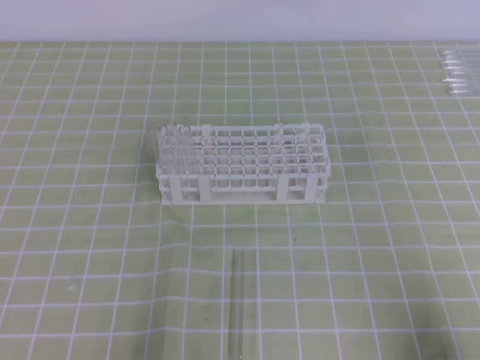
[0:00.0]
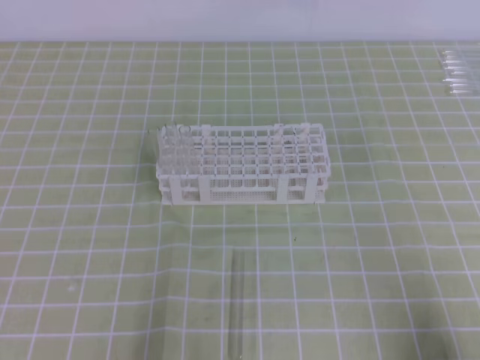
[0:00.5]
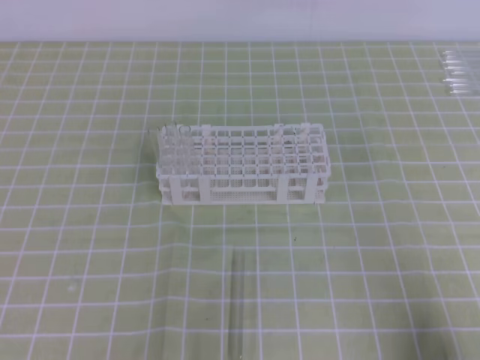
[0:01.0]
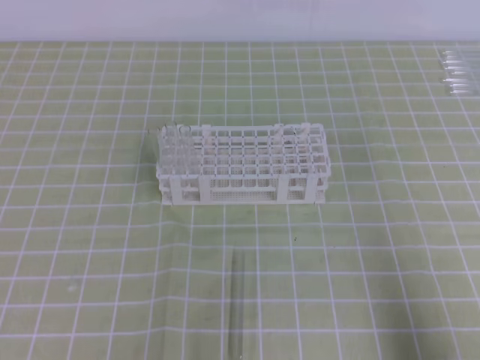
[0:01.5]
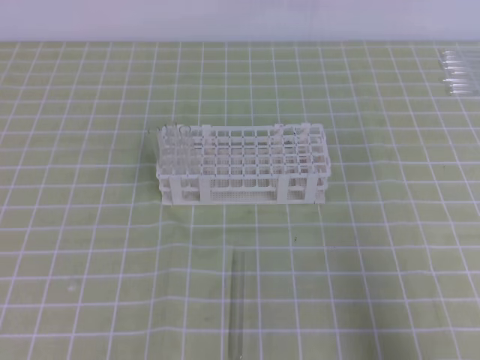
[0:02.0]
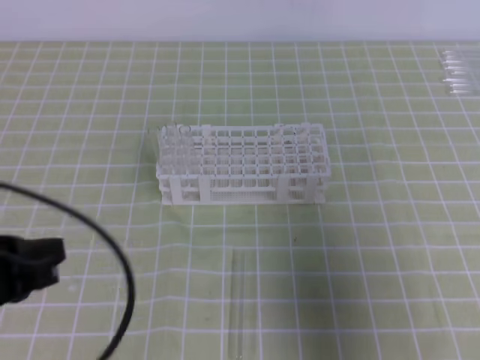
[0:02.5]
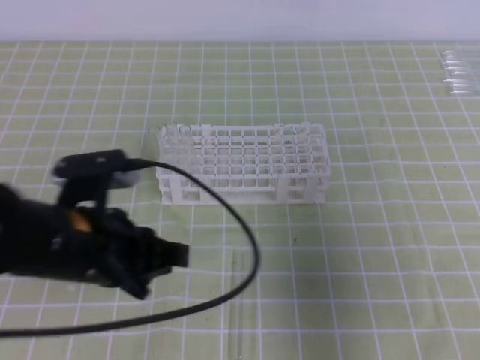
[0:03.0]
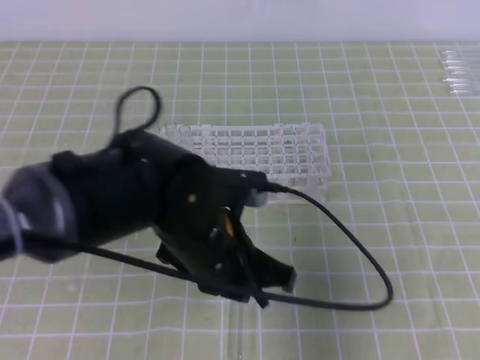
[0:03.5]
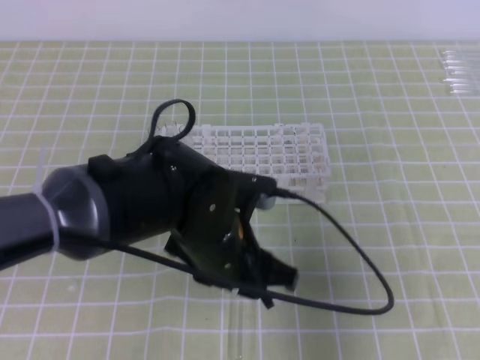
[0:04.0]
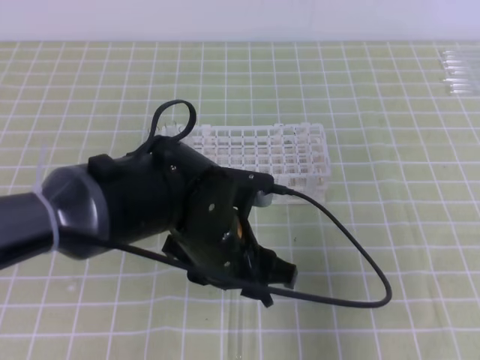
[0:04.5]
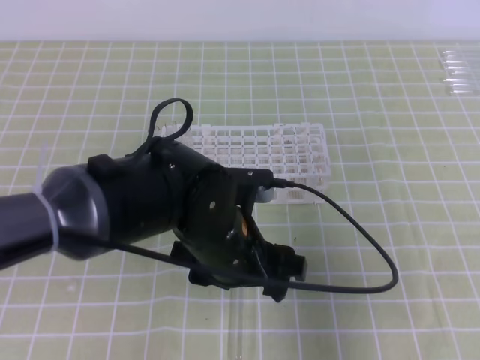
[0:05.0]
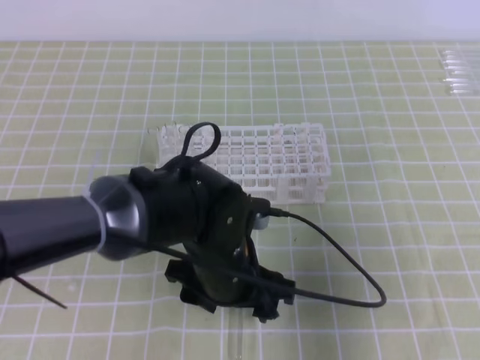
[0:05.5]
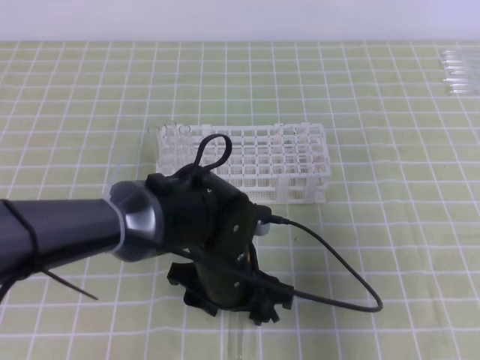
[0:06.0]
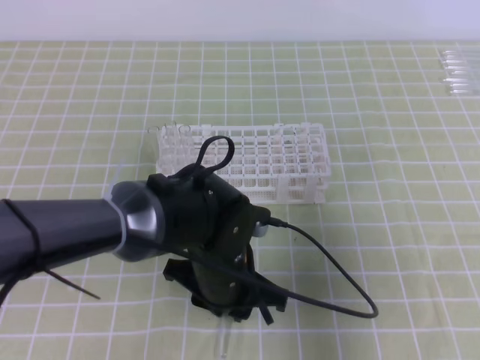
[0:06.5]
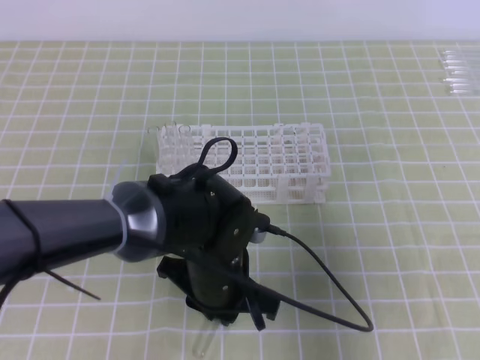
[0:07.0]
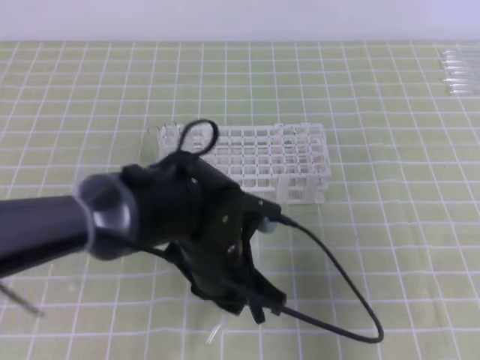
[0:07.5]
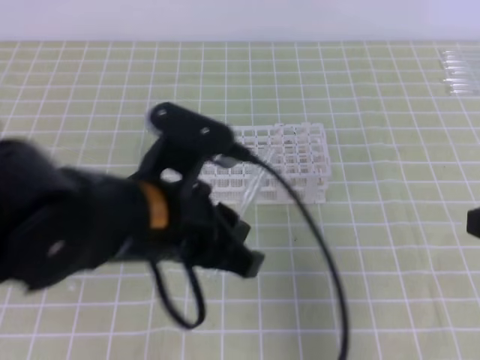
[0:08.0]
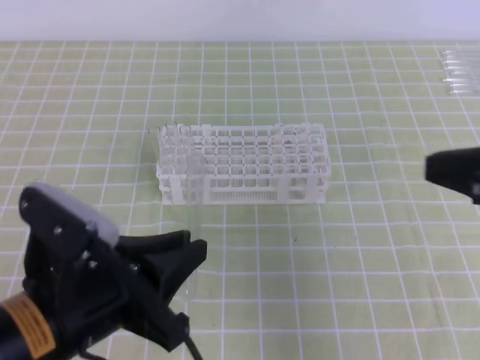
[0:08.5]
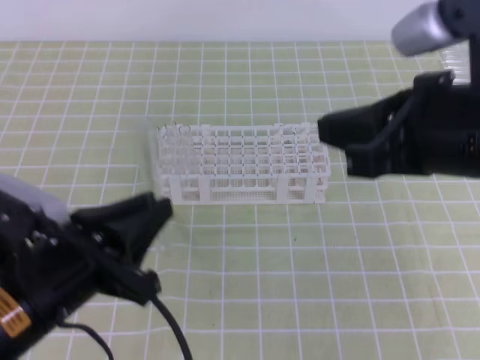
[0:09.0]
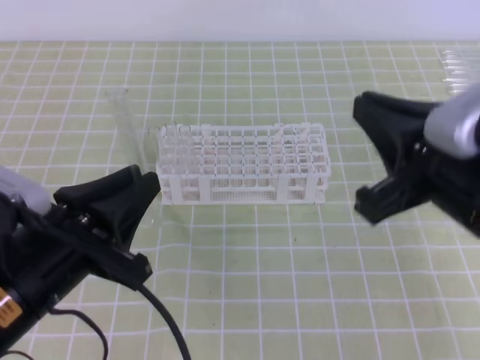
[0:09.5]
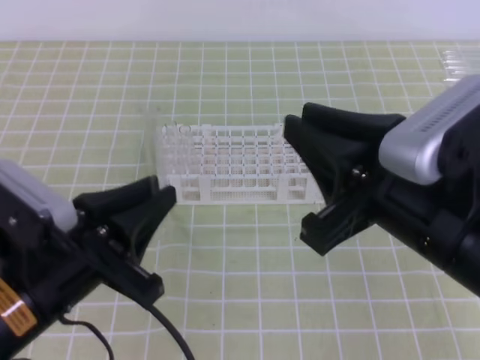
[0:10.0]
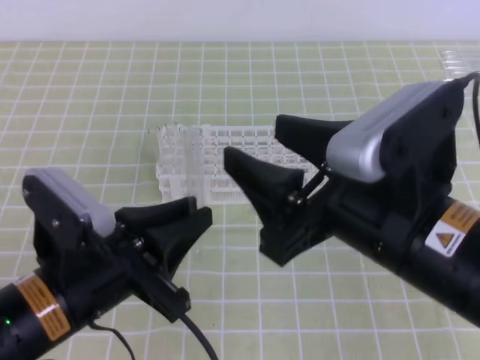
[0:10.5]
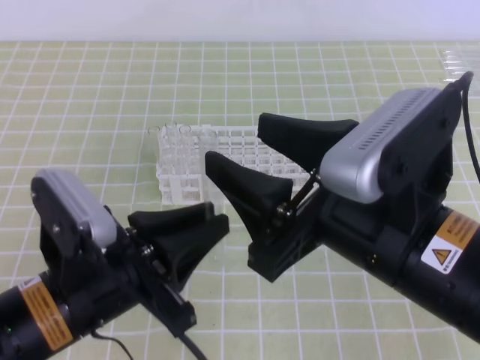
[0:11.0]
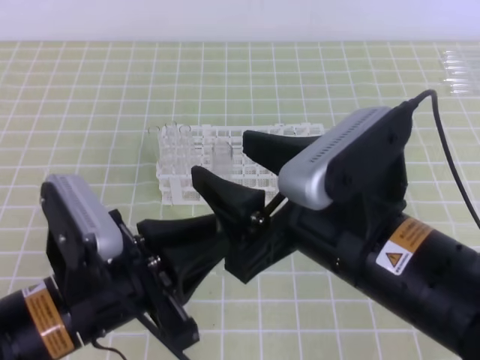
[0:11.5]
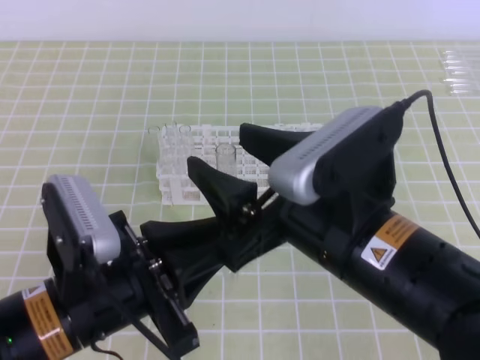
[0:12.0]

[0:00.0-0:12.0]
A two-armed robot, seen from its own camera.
0:00.0 to 0:02.0: The right gripper heads upward, covering roughly 5 cm.
0:02.0 to 0:04.0: The right gripper moves forward, approximately 10 cm. The left gripper travels to the right and forward by approximately 30 cm, and opens its fingers.
0:04.0 to 0:06.0: The left gripper shifts approximately 5 cm downward, and opens its fingers.
0:06.0 to 0:08.0: The left gripper goes approximately 15 cm upward and to the left, and closes up.
0:08.0 to 0:10.0: The left gripper travels to the left by roughly 10 cm. The right gripper heads to the left, covering approximately 15 cm.
0:10.0 to 0:12.0: The right gripper heads to the left, covering some 5 cm, and opens.

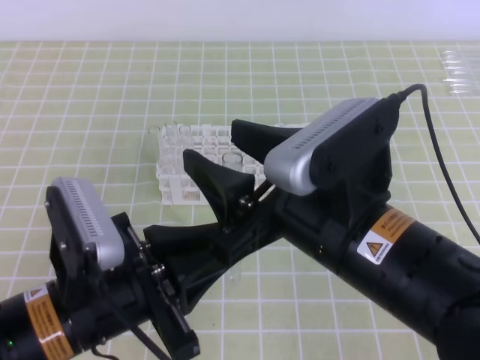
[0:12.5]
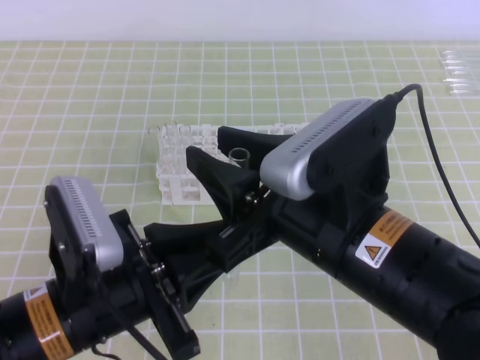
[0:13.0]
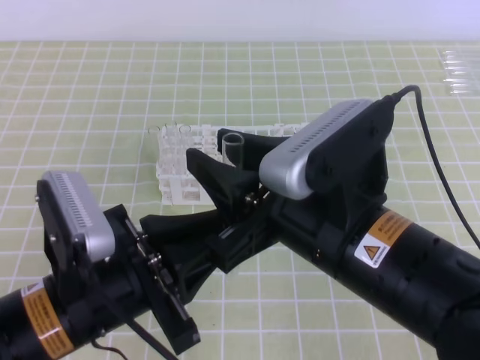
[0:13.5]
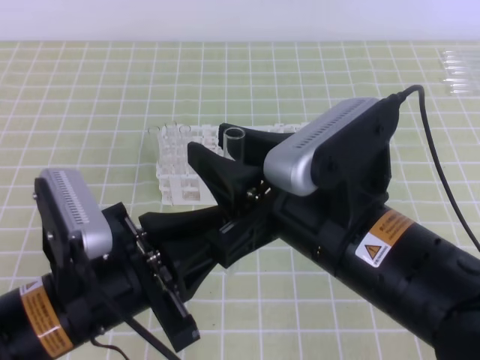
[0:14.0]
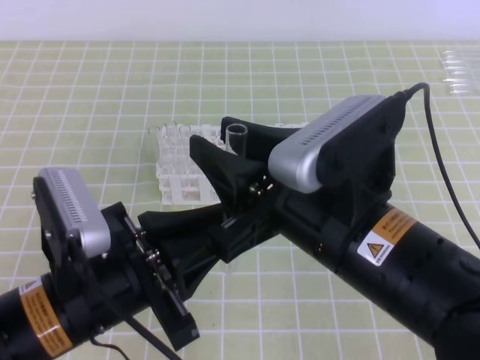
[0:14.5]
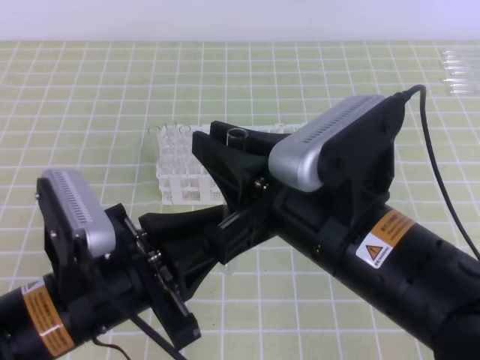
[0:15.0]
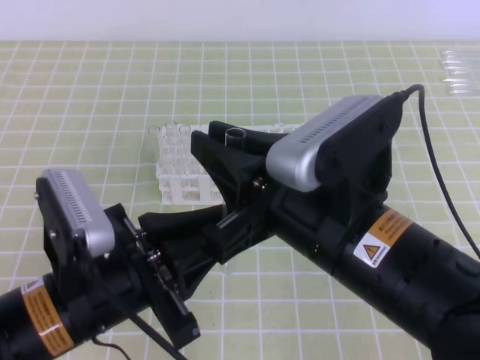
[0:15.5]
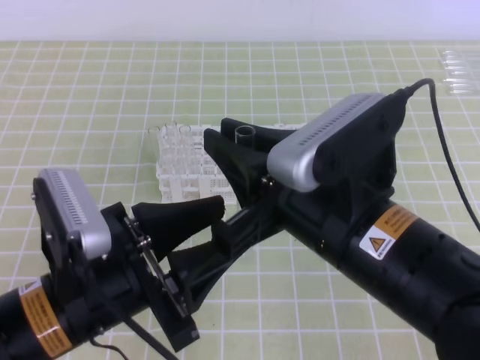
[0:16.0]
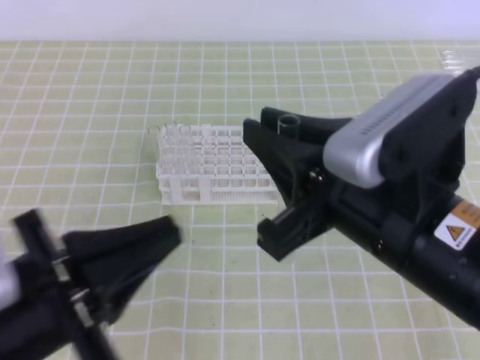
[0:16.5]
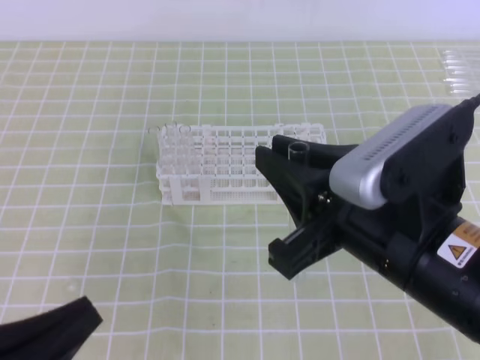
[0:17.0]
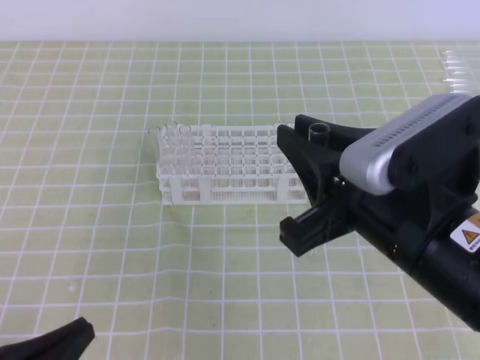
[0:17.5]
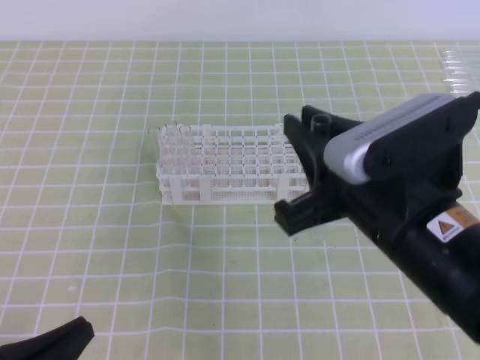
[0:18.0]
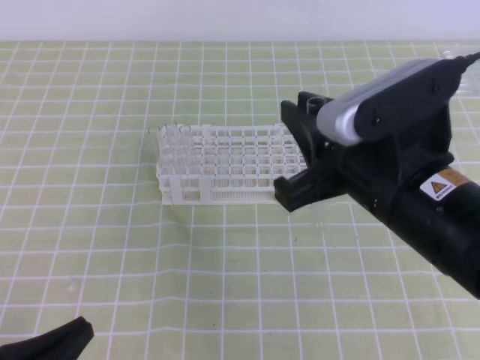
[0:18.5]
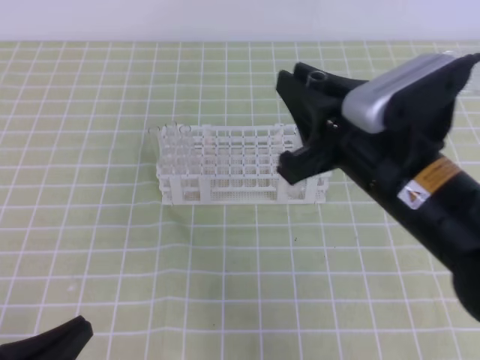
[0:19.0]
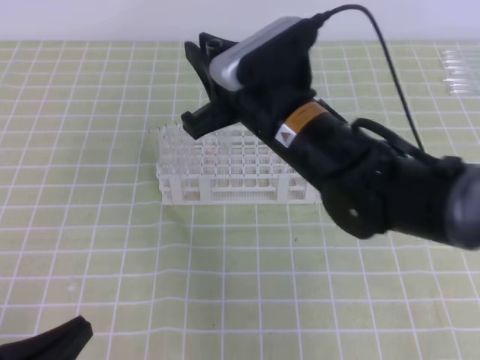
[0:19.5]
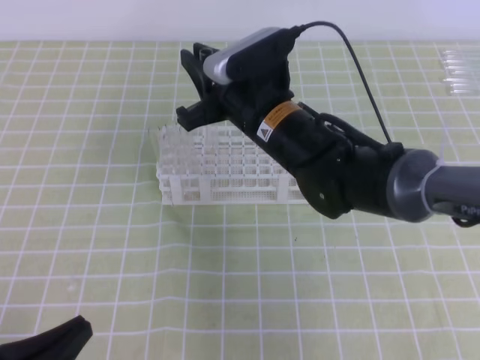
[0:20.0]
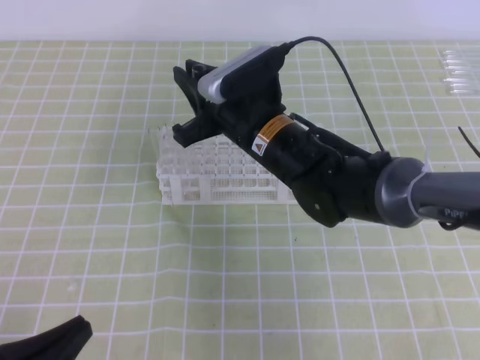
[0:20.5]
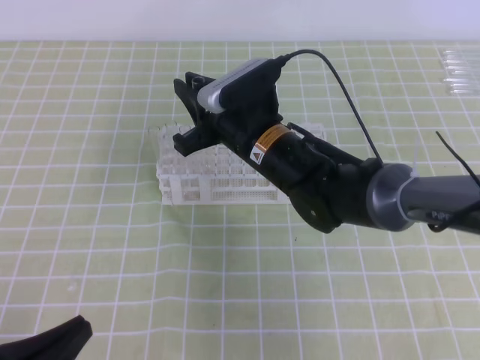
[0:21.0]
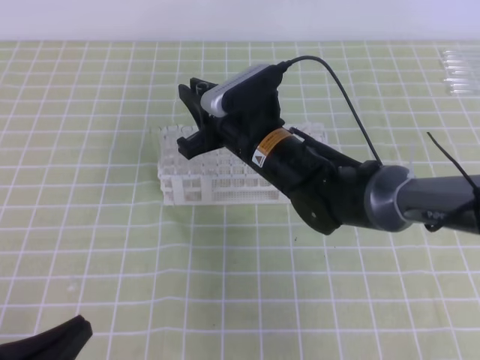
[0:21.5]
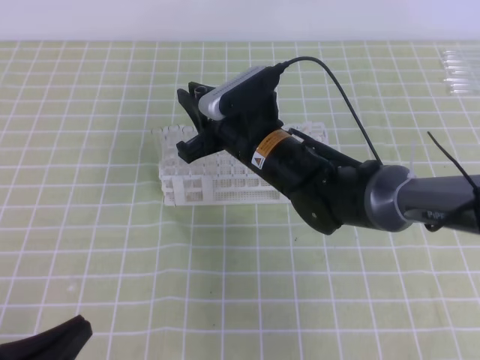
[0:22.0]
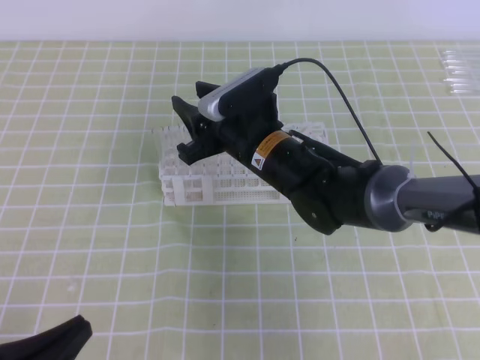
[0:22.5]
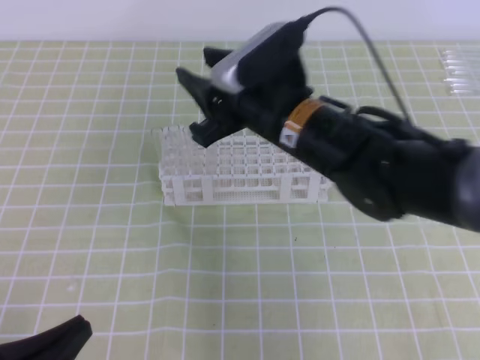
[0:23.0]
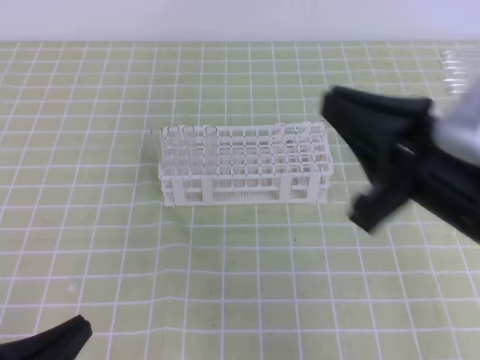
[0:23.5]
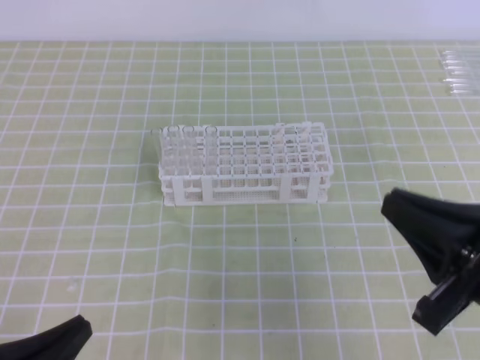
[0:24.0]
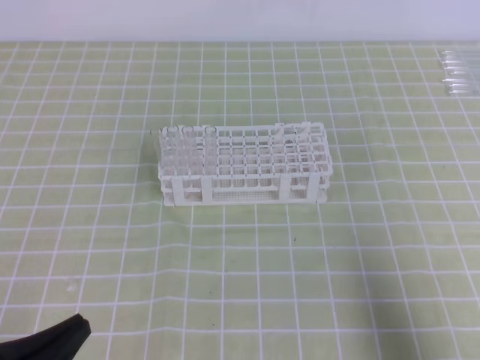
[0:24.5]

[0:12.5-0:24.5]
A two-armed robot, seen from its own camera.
0:12.5 to 0:14.5: There are only small adjustments of the grippers.
0:14.5 to 0:16.5: The right gripper closes up. The left gripper ends up about 5 cm from where it was, and opens, then closes again.
0:16.5 to 0:18.5: The left gripper travels downward and to the left by roughly 10 cm.
0:18.5 to 0:20.5: The right gripper goes about 20 cm forward, to the left and downward.
0:20.5 to 0:22.5: The right gripper opens.
0:22.5 to 0:24.5: The right gripper moves to the right and backward, approximately 40 cm, and closes.

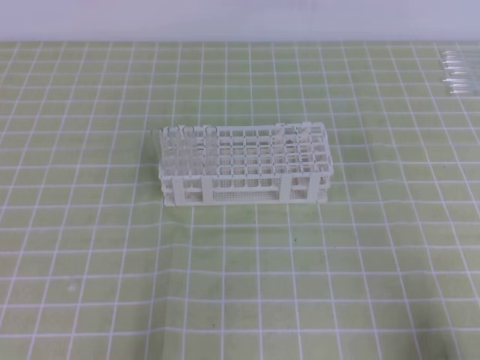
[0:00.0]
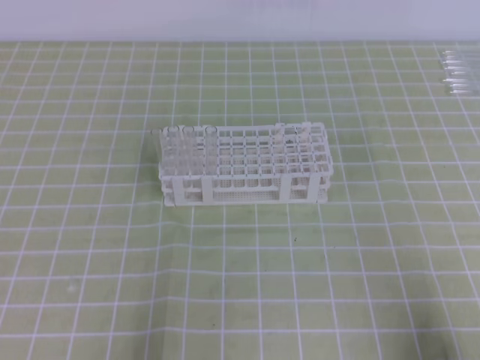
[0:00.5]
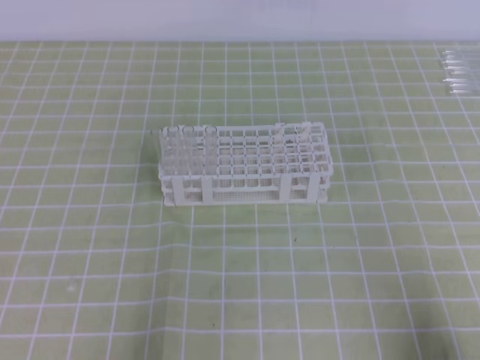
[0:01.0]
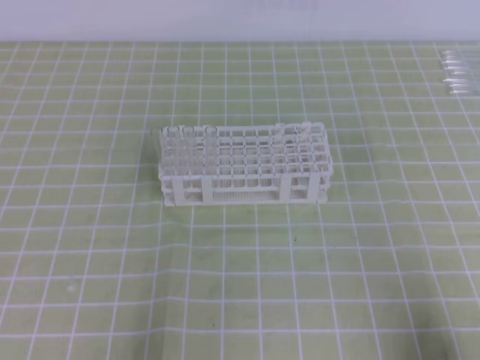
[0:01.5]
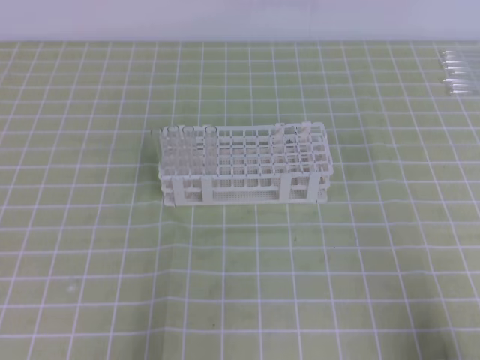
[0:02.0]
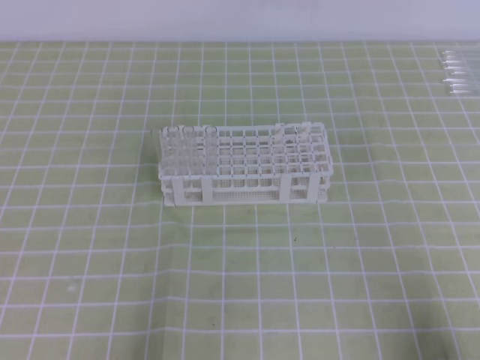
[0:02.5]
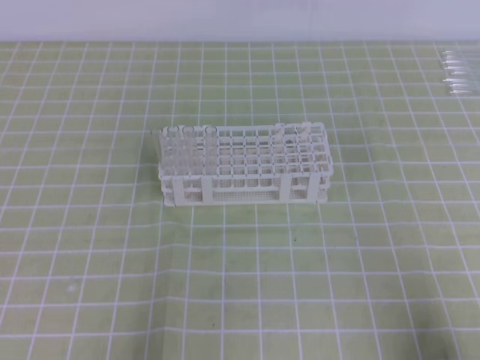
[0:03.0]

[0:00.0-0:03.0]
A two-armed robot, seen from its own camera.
0:00.0 to 0:03.0: Neither gripper changes place.
